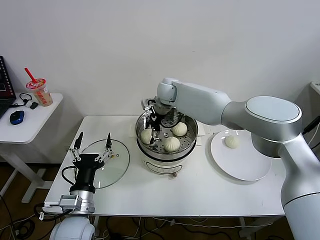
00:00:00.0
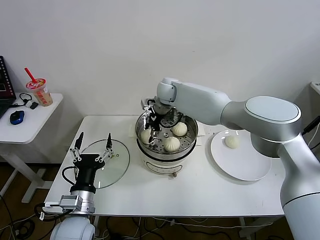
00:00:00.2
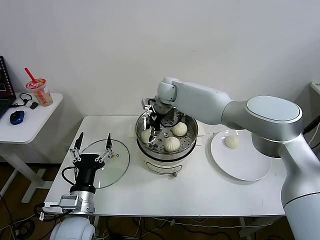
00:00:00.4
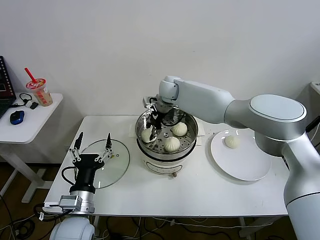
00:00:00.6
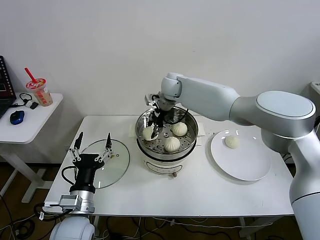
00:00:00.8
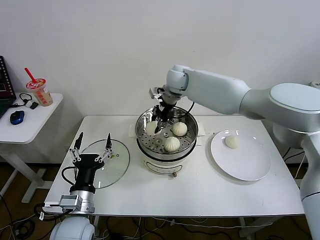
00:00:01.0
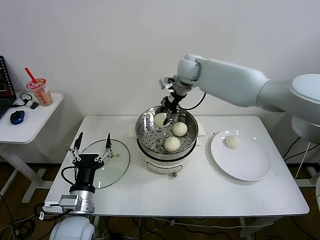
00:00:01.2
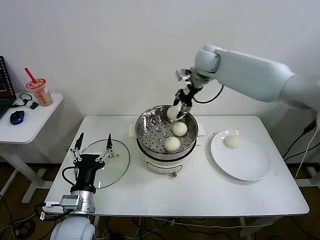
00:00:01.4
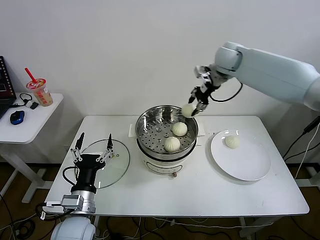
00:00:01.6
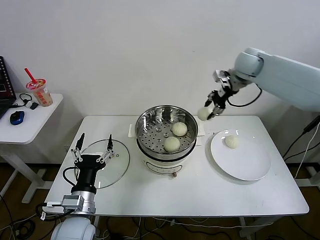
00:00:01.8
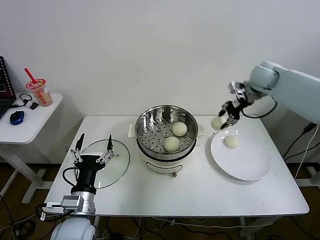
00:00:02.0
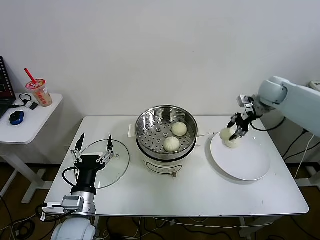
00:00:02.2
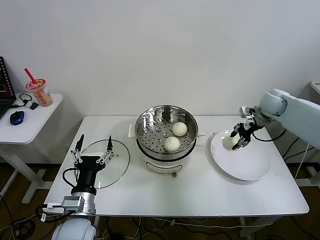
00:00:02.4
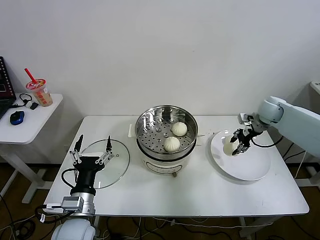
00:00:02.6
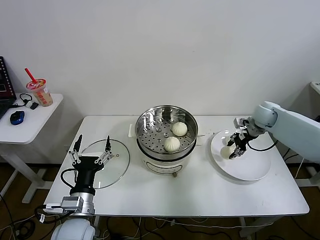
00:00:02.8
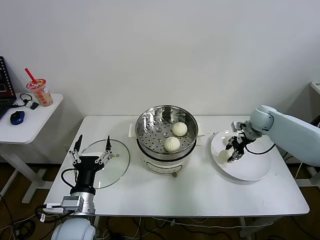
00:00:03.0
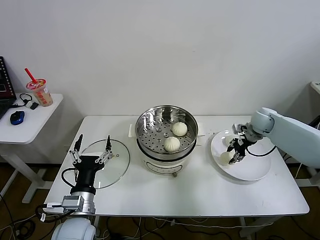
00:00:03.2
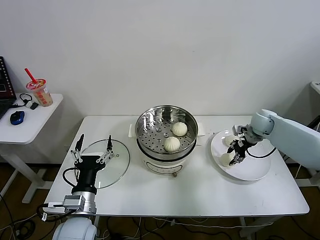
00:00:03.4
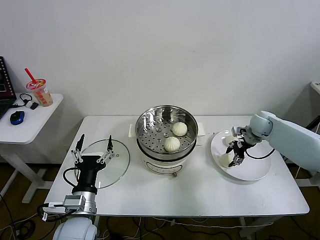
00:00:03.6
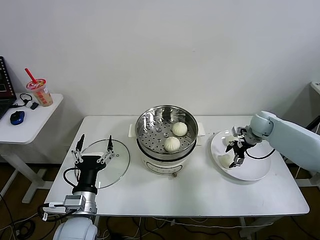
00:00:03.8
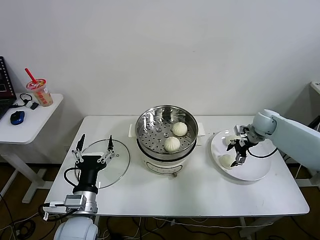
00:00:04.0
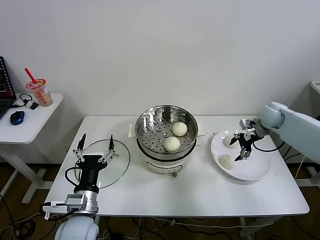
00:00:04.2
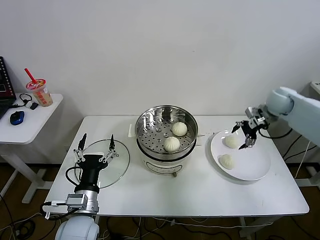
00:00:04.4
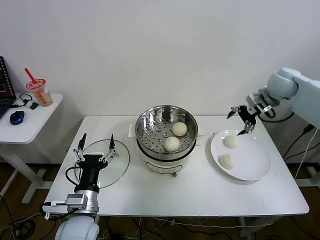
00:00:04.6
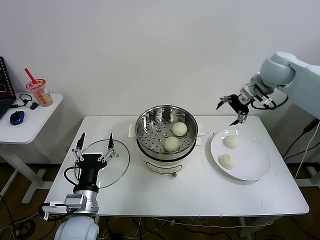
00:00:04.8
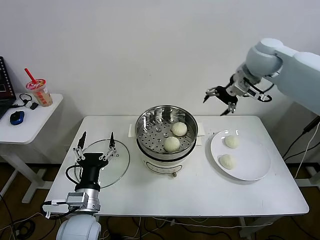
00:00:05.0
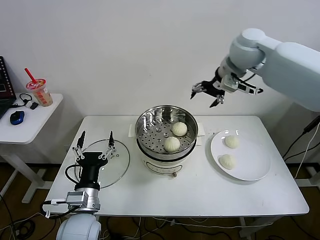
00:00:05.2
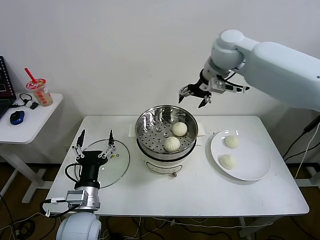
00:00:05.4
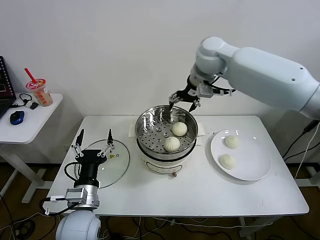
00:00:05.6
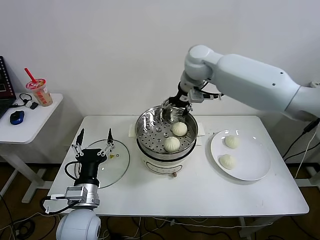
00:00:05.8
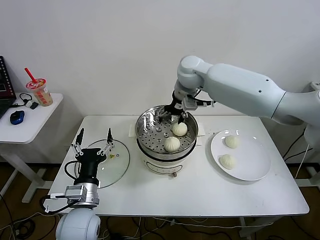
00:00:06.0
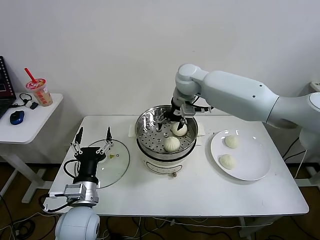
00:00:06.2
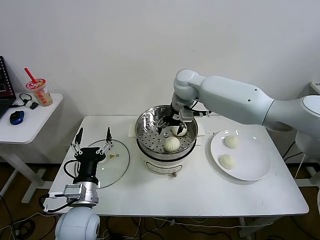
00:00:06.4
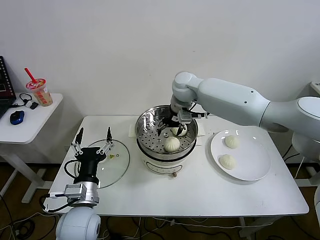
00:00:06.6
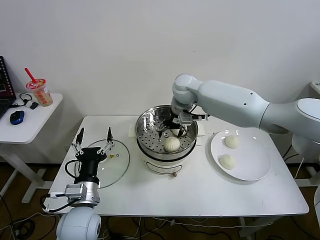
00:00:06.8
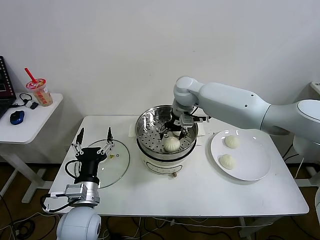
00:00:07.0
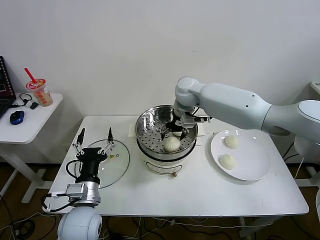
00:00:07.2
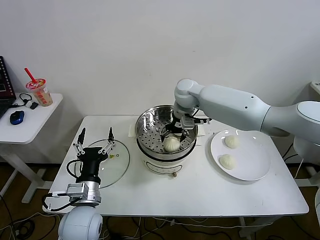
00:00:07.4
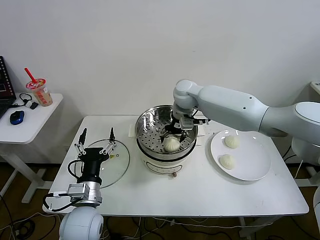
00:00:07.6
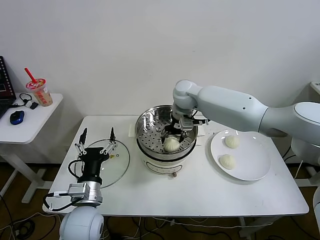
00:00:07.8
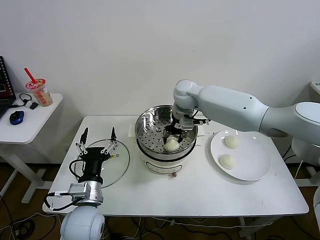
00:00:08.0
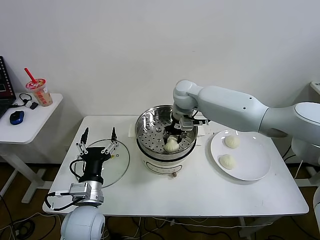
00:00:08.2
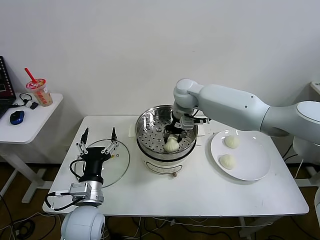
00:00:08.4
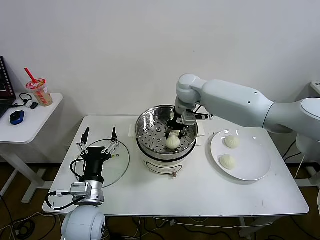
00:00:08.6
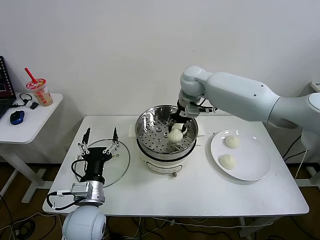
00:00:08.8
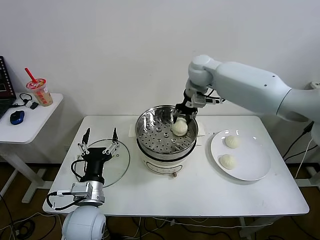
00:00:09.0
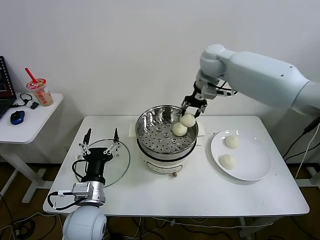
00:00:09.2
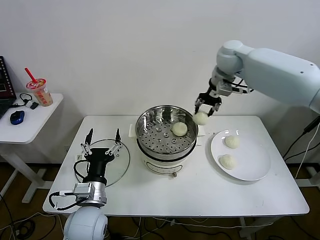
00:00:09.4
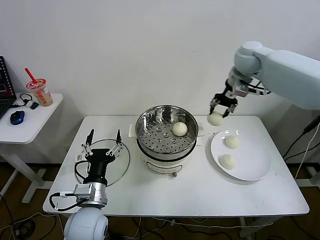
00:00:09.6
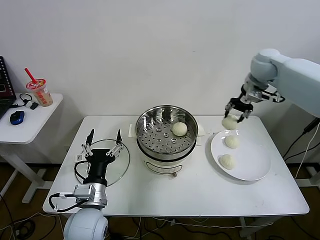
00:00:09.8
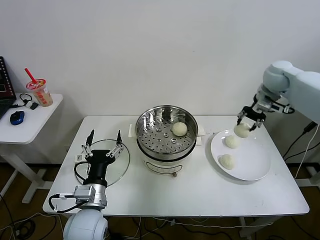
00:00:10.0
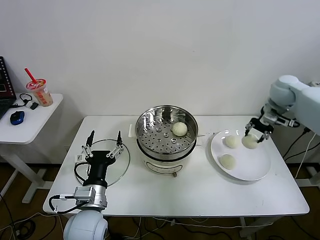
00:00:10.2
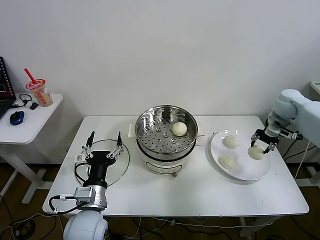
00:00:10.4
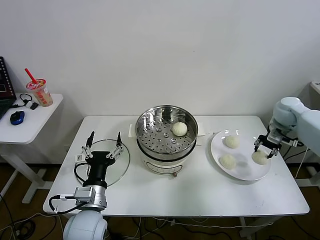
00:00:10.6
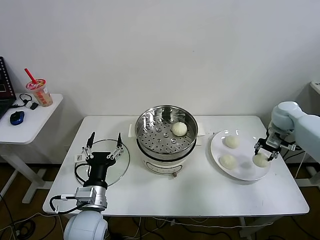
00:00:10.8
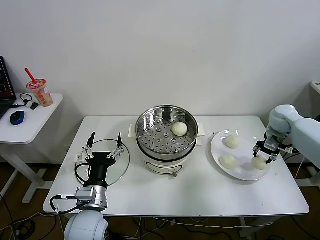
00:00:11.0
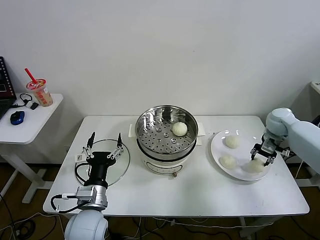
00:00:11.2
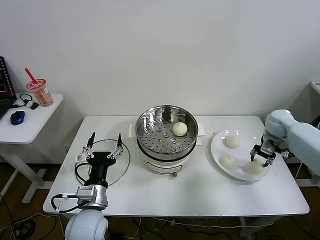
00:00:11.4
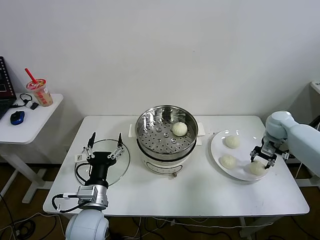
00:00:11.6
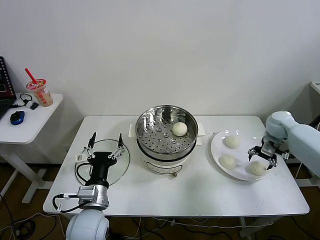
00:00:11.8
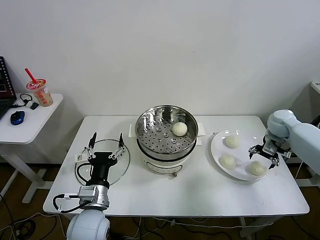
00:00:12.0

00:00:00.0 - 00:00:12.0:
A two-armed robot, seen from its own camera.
Task of the whole recording: take steamed baozi put them in steamer then cover it.
Step, 00:00:00.6 - 00:00:03.6: Place the baozi on the plate with right gripper.
Step, 00:00:03.8 - 00:00:08.2: Grasp the baozi with right gripper.
Step, 00:00:08.4 - 00:00:11.8: Place the baozi on the plate with right gripper.
00:00:00.0 - 00:00:01.6: The right gripper goes some 25 cm to the right and upward, and closes.
00:00:01.6 - 00:00:03.0: The right gripper is displaced downward and to the right by roughly 25 cm.
00:00:03.0 - 00:00:04.4: The right gripper shifts approximately 10 cm upward, and opens its fingers.
00:00:04.4 - 00:00:06.0: The right gripper moves to the left, some 30 cm.
00:00:06.0 - 00:00:07.6: The right gripper heads downward, covering approximately 10 cm.
00:00:07.6 - 00:00:09.0: The right gripper goes about 5 cm upward, and closes its fingers.
00:00:09.0 - 00:00:10.4: The right gripper goes some 30 cm to the right.
00:00:10.4 - 00:00:12.0: The right gripper heads downward, covering approximately 10 cm, and opens up.

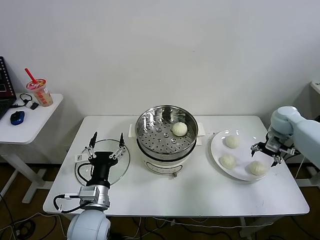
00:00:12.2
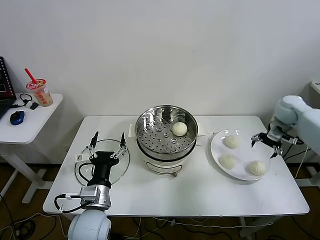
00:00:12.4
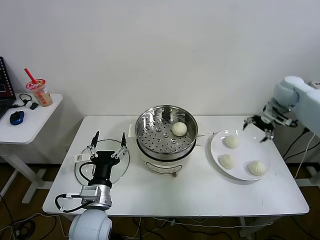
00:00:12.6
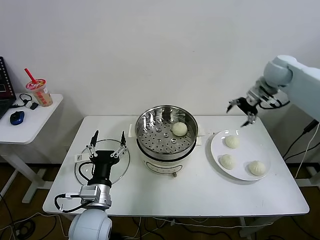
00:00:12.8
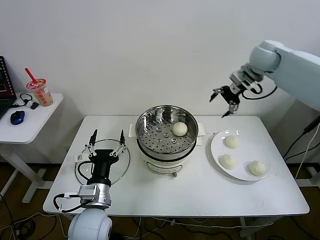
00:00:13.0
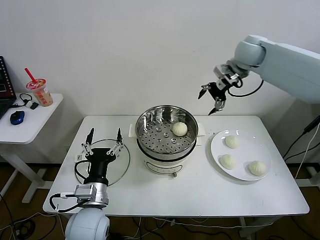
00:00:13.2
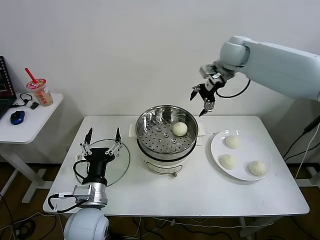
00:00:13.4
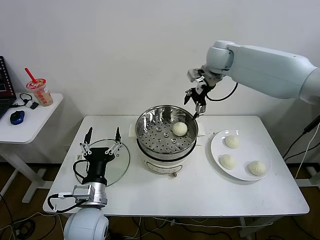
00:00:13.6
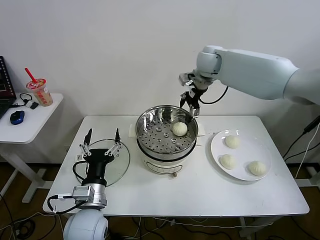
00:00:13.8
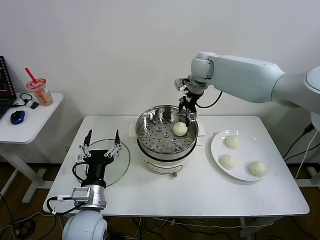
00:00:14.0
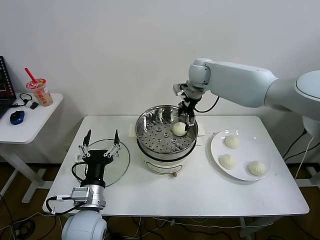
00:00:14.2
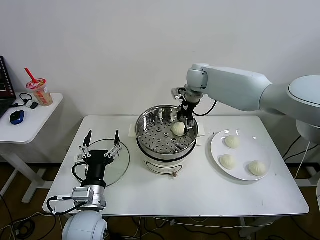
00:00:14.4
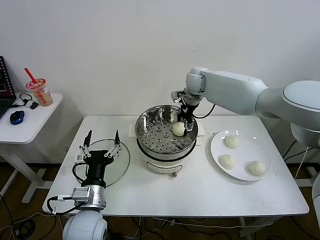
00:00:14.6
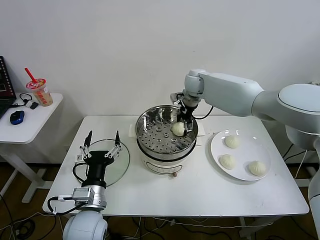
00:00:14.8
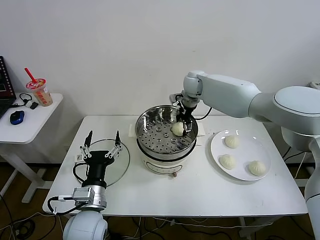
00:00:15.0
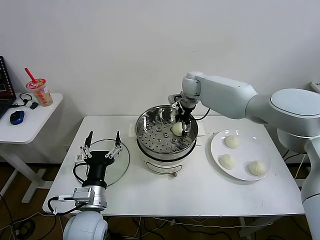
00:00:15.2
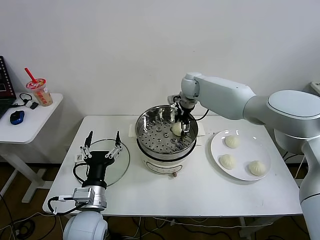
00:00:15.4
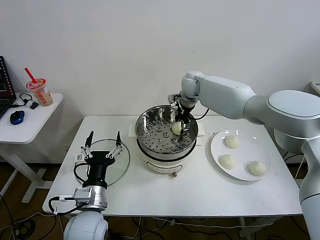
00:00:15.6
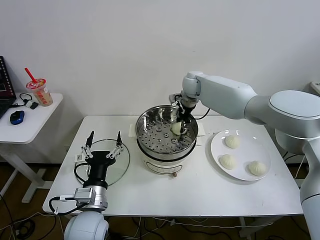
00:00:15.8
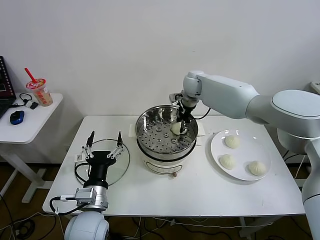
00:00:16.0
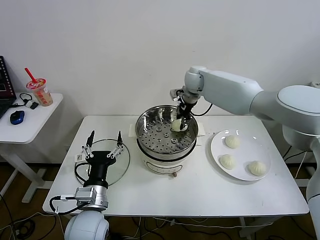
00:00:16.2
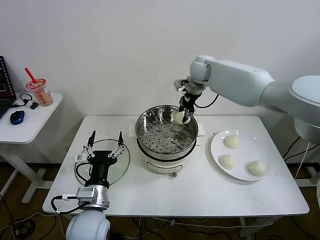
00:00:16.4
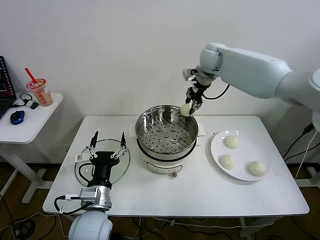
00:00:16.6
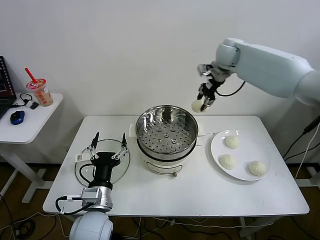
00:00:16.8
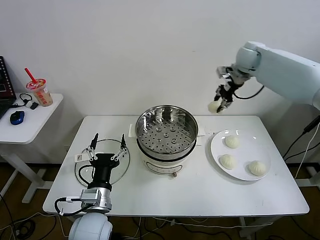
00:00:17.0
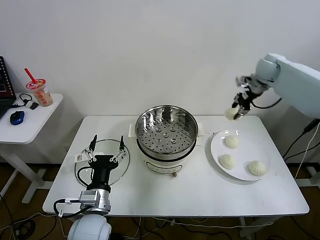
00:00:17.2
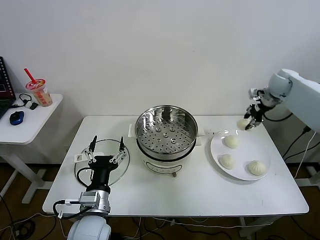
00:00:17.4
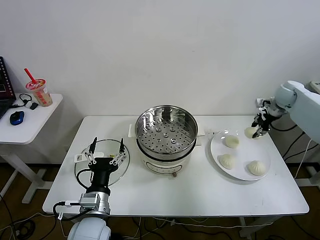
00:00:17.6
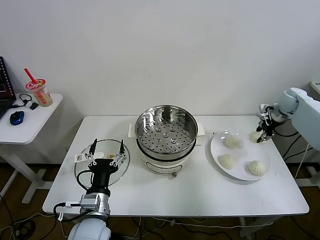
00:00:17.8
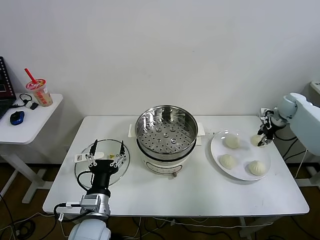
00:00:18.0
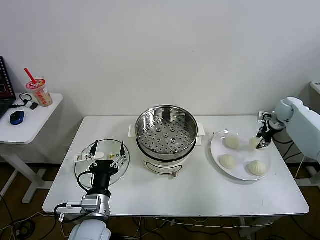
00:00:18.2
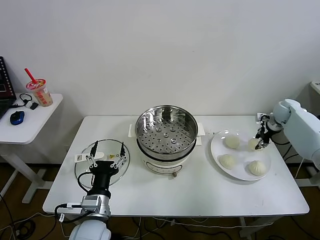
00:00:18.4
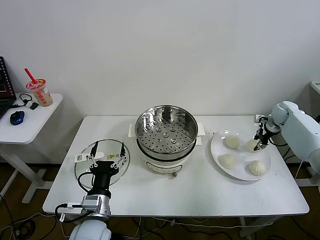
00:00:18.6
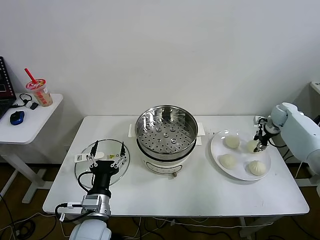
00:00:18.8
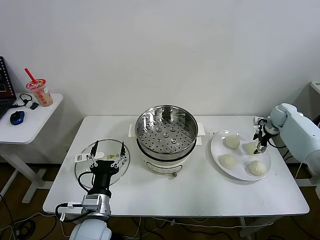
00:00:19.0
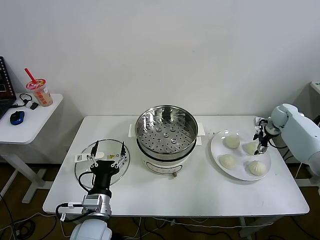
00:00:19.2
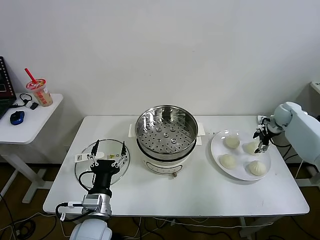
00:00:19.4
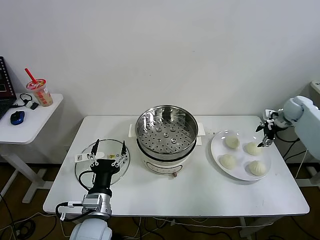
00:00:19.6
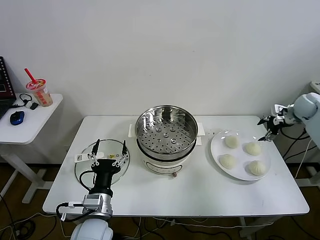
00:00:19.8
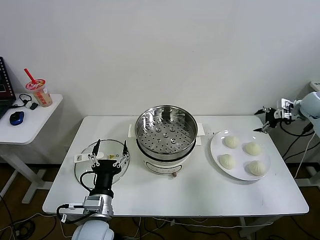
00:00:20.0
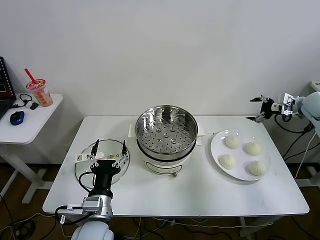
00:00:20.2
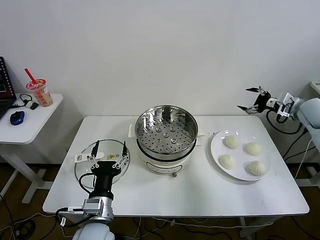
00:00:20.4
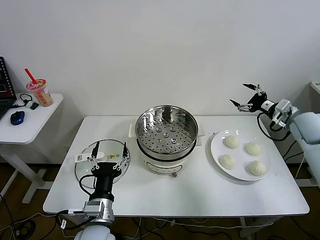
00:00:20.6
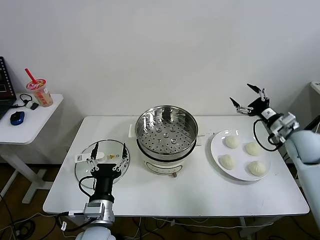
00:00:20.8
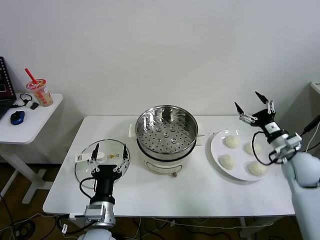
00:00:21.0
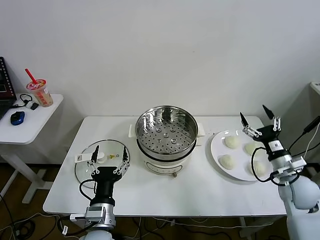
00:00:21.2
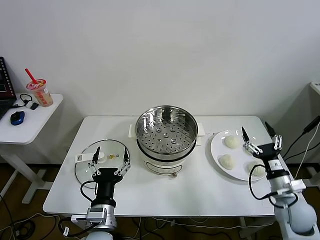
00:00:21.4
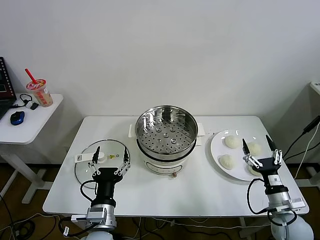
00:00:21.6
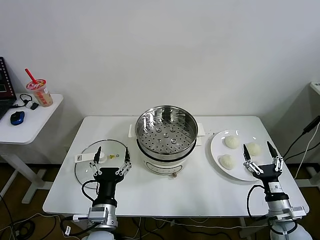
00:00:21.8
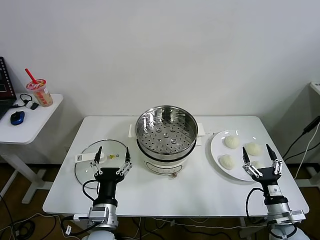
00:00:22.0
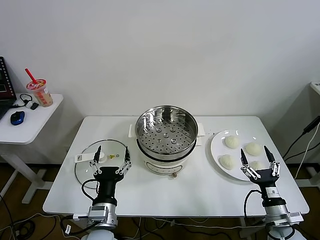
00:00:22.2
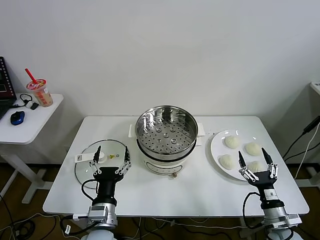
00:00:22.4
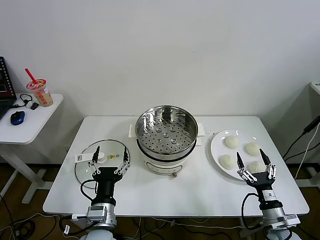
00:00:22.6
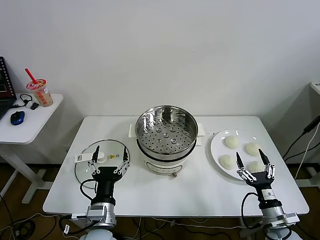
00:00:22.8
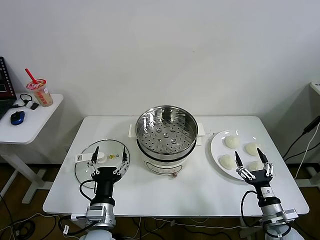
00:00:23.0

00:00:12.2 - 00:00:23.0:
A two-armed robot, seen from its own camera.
Task of the whole recording: take steamed baozi put them in steamer then cover it.
Step, 00:00:12.2 - 00:00:15.8: Grasp the baozi with right gripper.
Step, 00:00:16.2 - 00:00:19.2: Place the baozi on the plate with right gripper.
00:00:12.2 - 00:00:13.8: The right gripper shifts about 35 cm to the left and upward.
00:00:13.8 - 00:00:15.2: The right gripper goes roughly 10 cm downward.
00:00:15.2 - 00:00:16.8: The right gripper is displaced upward and to the right by about 15 cm, and closes.
00:00:16.8 - 00:00:18.4: The right gripper shifts approximately 35 cm to the right and downward.
00:00:18.4 - 00:00:20.0: The right gripper is displaced upward by approximately 5 cm, and opens up.
00:00:20.0 - 00:00:21.4: The right gripper travels backward, downward and to the left by some 35 cm.
00:00:21.4 - 00:00:23.0: The right gripper heads backward and downward, covering some 10 cm.
